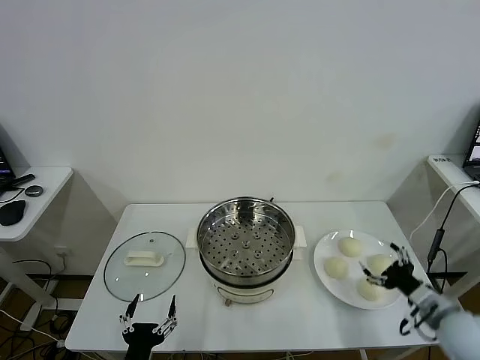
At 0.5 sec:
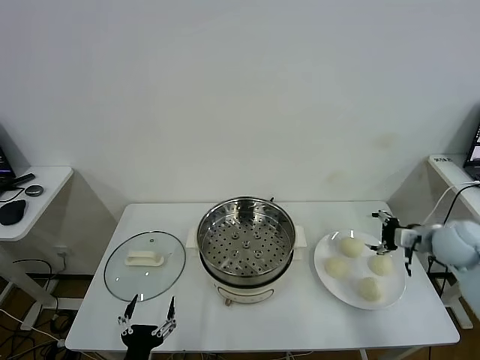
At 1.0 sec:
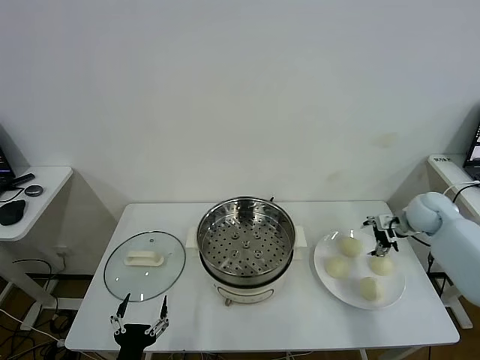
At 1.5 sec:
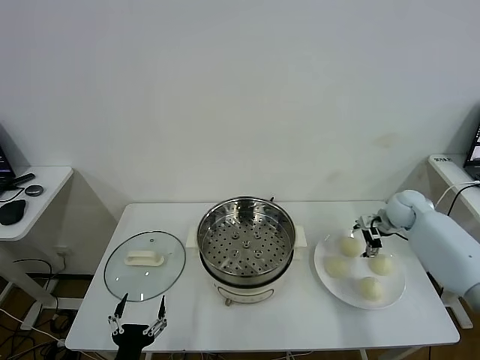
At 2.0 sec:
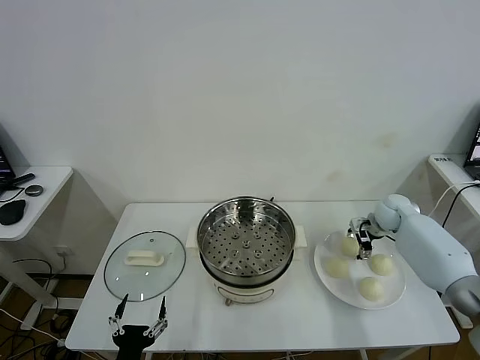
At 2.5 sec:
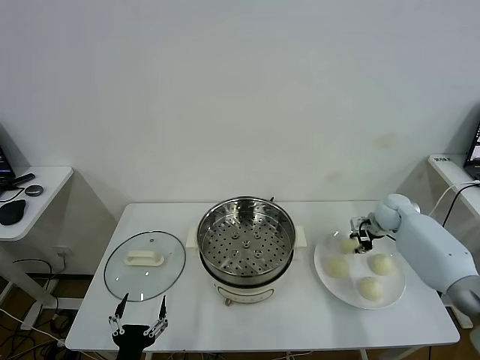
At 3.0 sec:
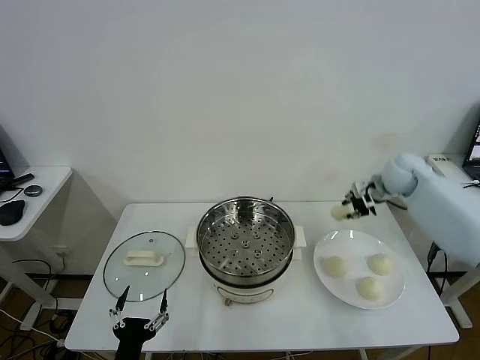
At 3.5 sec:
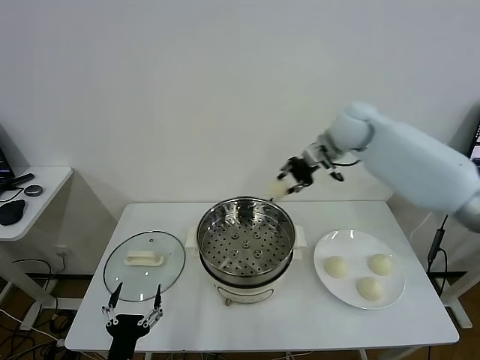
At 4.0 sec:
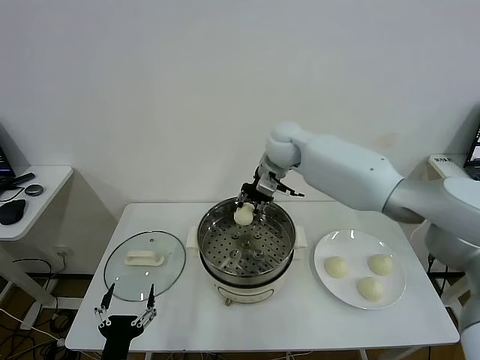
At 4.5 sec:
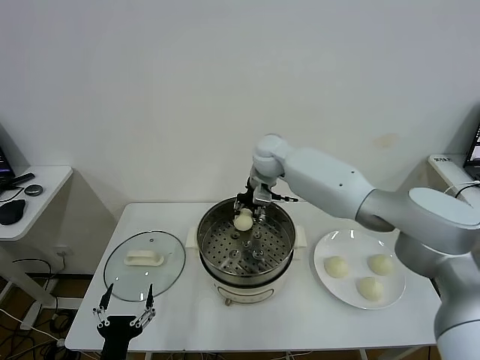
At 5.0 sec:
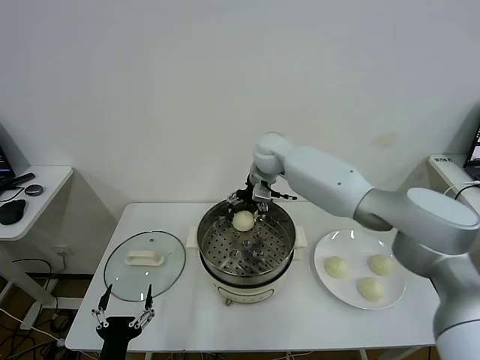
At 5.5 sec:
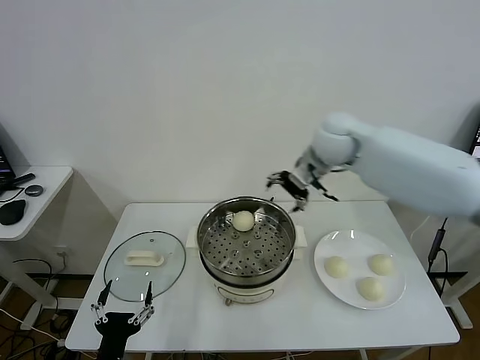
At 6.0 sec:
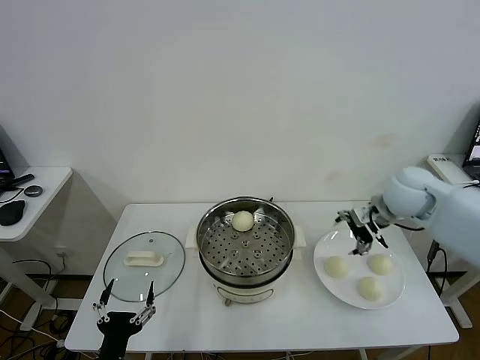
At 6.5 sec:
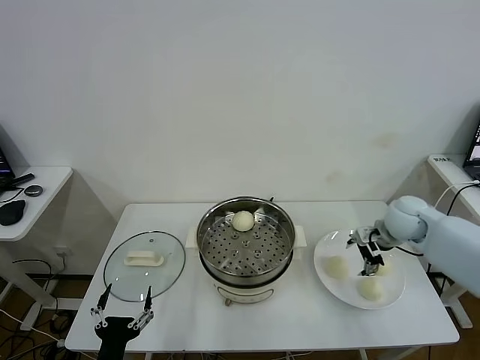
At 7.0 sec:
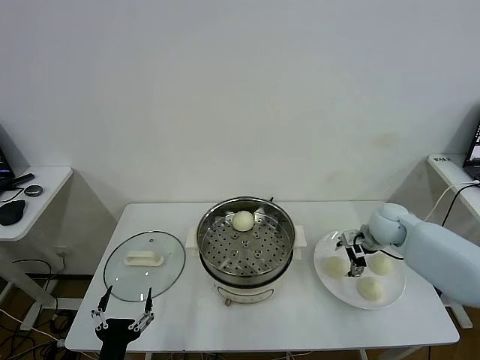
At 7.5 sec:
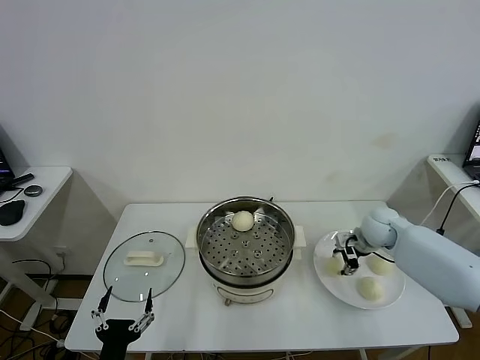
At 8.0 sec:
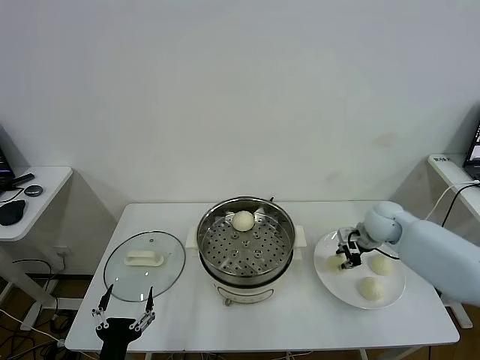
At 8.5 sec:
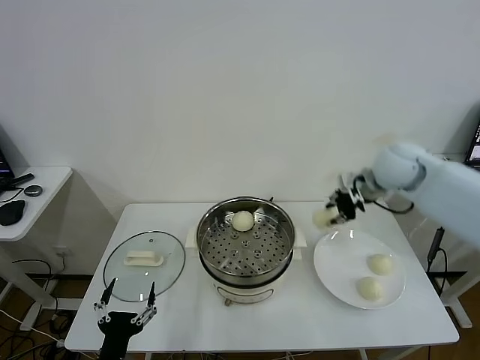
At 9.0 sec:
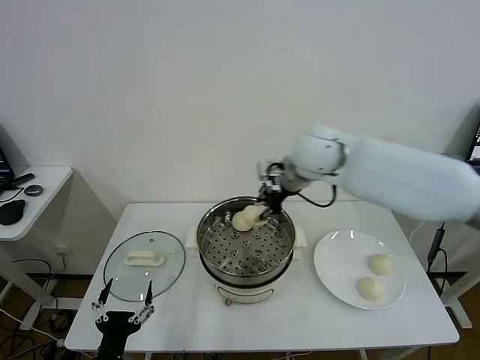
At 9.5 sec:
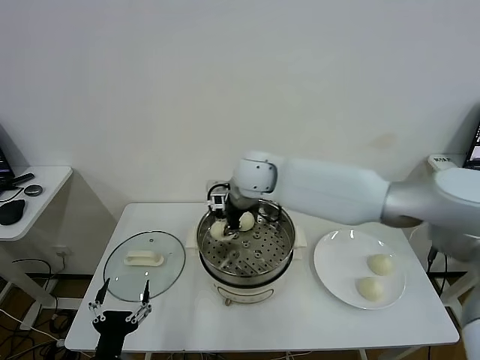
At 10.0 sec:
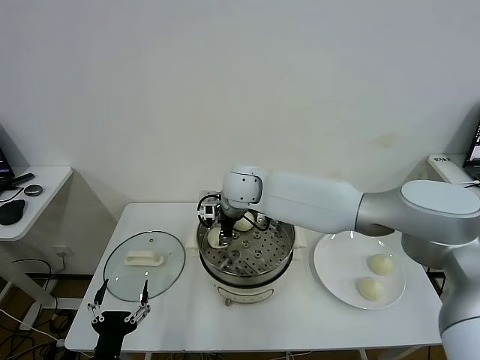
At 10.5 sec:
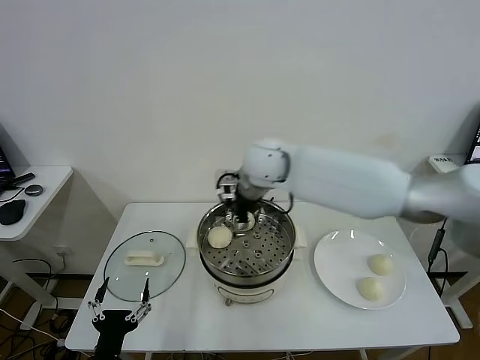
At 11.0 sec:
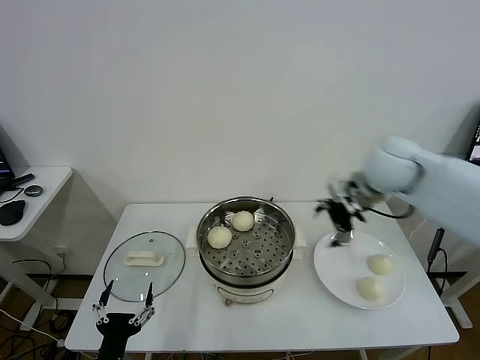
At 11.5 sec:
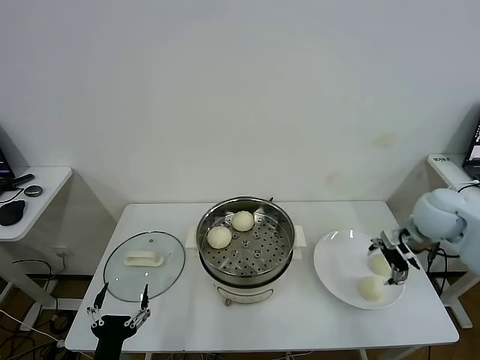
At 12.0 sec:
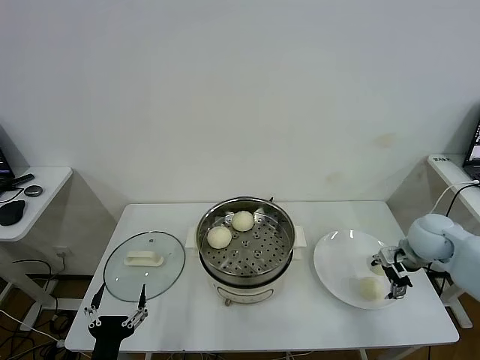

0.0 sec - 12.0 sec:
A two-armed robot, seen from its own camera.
Task of the whole recording: take steamed baozi put them in steamer.
Step, 0.0 sec - 2.0 sec: Grasp the baozi in the plate with right gripper.
Step, 2.5 sec - 5.0 sec: Place the baozi on the steamer with right gripper.
Step, 5.5 sec - 7.5 sec: Grasp the baozi in the plate with right gripper.
Step, 8.0 sec - 10.0 sec: Place the baozi on the steamer with right gripper.
2.0 sec - 4.0 sec: The right gripper moves to the left and upward, about 35 cm, and closes up.
4.0 sec - 6.0 sec: The right gripper travels to the right and backward by about 30 cm, and opens its fingers.
6.0 sec - 8.0 sec: The right gripper travels downward by about 10 cm, and closes its fingers.
8.0 sec - 10.0 sec: The right gripper heads to the left, covering approximately 35 cm, and opens.
10.0 sec - 12.0 sec: The right gripper shifts roughly 40 cm to the right, and opens up.

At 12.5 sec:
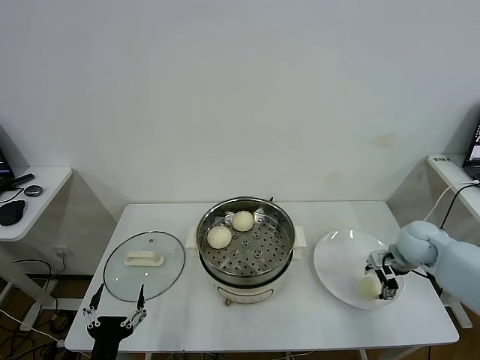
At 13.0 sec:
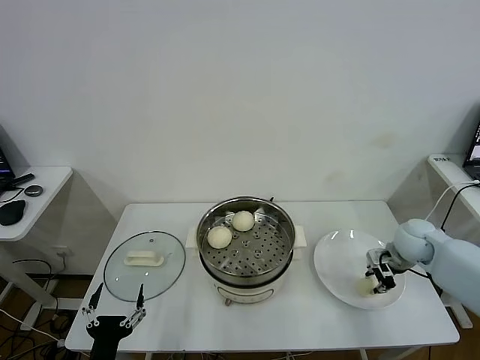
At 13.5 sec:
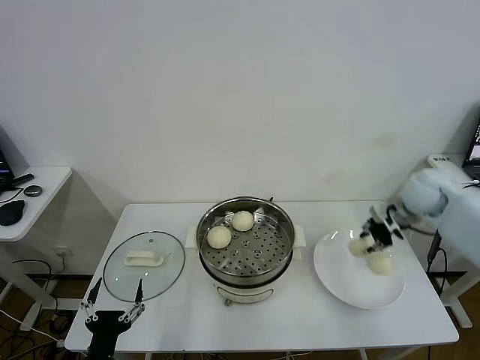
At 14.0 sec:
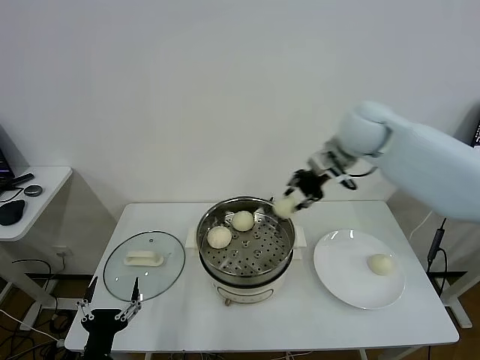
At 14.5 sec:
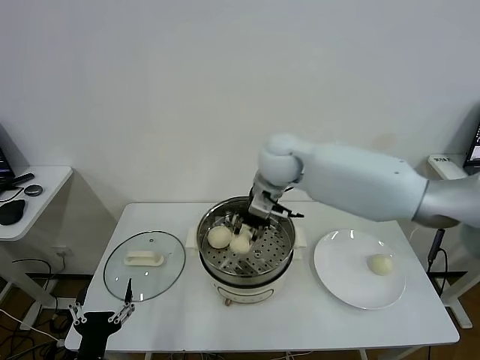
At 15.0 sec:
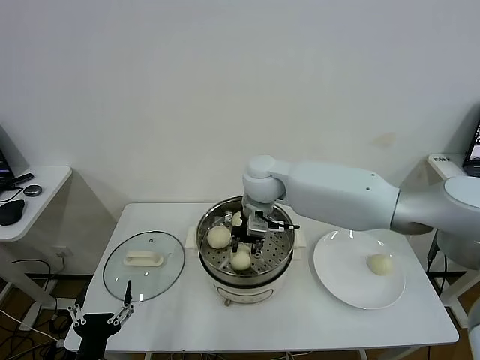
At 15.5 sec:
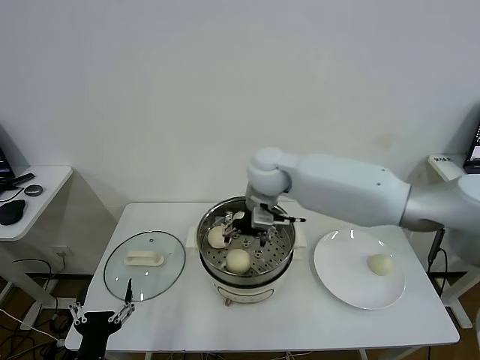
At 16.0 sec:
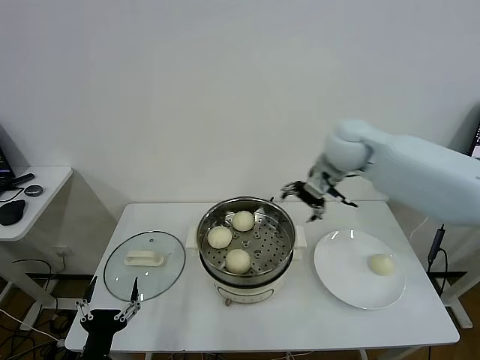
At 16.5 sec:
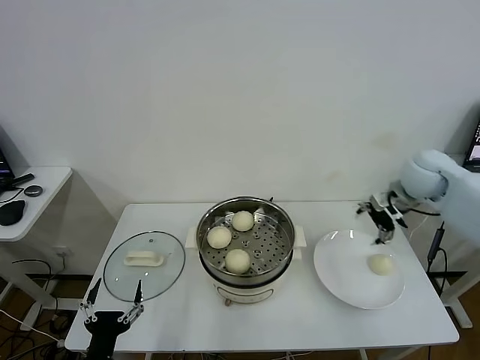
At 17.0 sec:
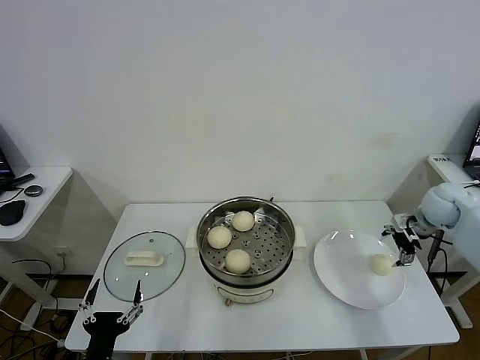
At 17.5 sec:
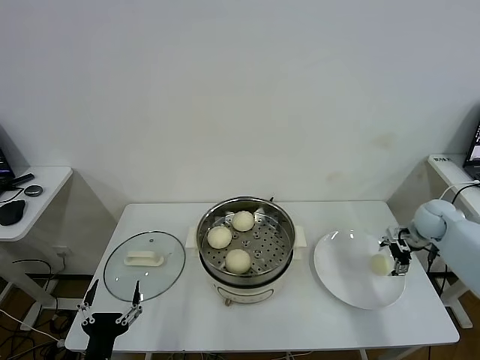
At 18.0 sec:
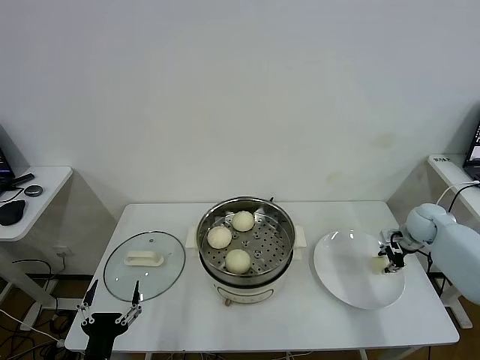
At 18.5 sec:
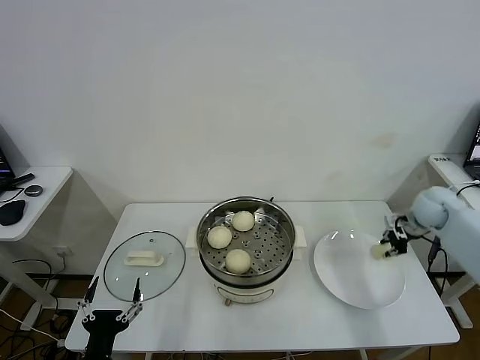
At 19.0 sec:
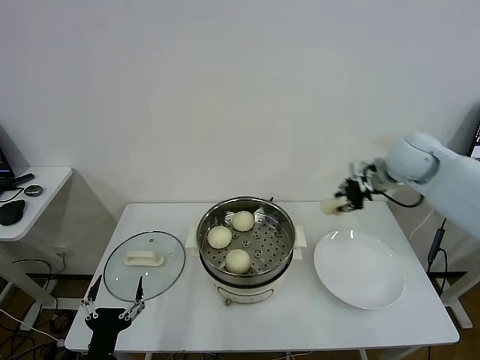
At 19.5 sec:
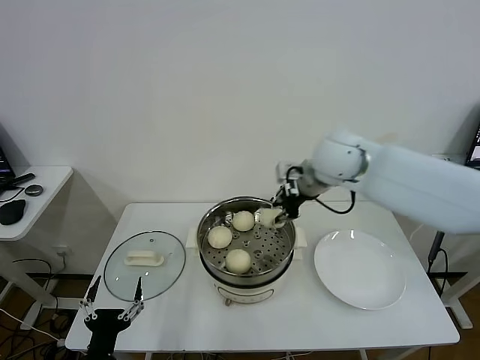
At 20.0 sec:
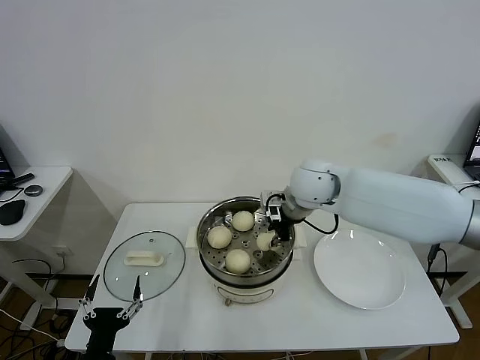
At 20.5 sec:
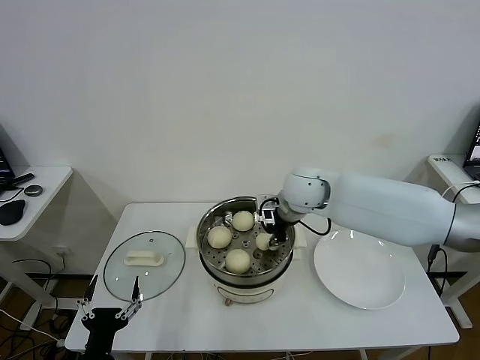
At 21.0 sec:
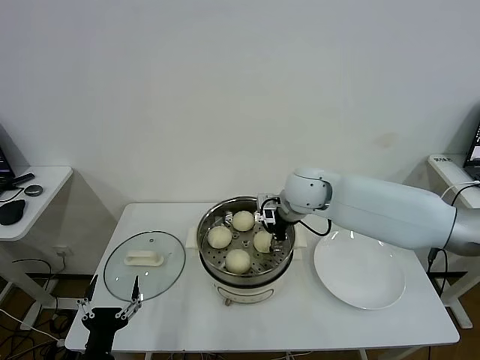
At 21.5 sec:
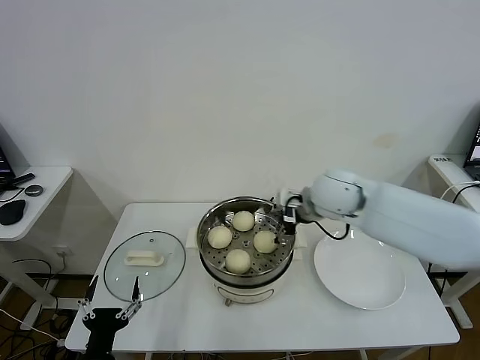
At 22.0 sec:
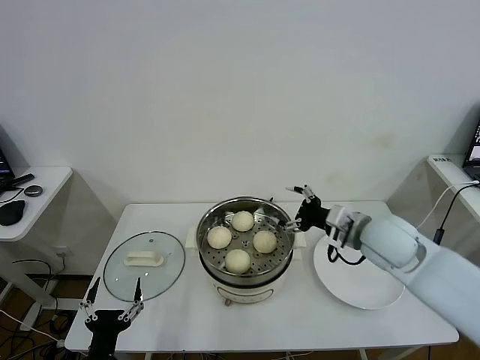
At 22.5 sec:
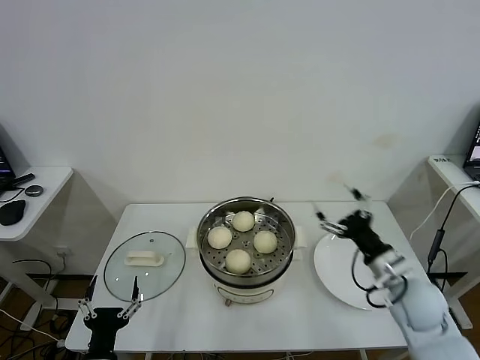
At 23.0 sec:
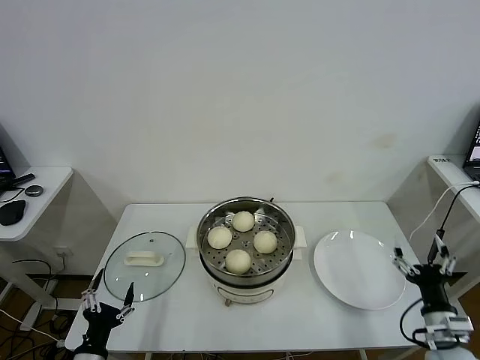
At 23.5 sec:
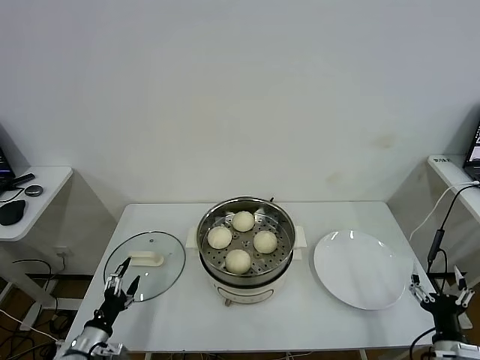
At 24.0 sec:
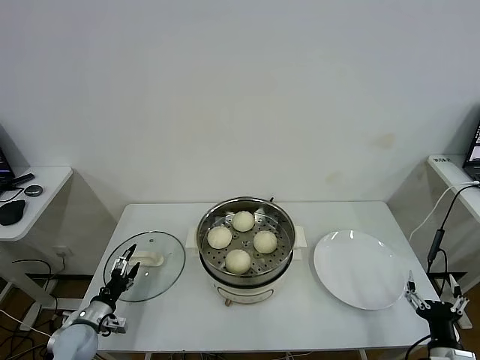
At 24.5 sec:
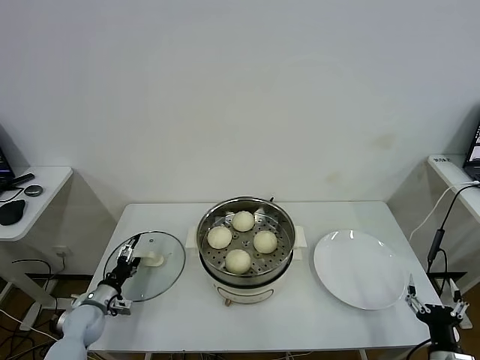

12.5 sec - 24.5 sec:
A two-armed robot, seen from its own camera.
Task of the whole recording: take steamed baozi put them in steamer.
Step, 13.0 sec - 15.0 sec: Place the baozi on the steamer with right gripper.
Step, 15.5 sec - 18.0 sec: Grasp the baozi in the plate with right gripper.
Step, 18.5 sec - 21.0 sec: Place the baozi on the steamer with right gripper.
12.5 sec - 14.5 sec: The right gripper shifts some 40 cm to the left and upward, and closes.
14.5 sec - 16.5 sec: The right gripper is displaced to the right by some 30 cm, and opens.
16.5 sec - 18.5 sec: The right gripper travels downward and to the right by approximately 10 cm, and closes up.
18.5 sec - 20.5 sec: The right gripper is displaced to the left by roughly 35 cm.
20.5 sec - 22.5 sec: The right gripper travels to the right, backward and downward by roughly 30 cm, and opens its fingers.
22.5 sec - 24.5 sec: The right gripper shifts roughly 25 cm backward, downward and to the right. The left gripper heads forward, to the left and downward, covering approximately 25 cm.

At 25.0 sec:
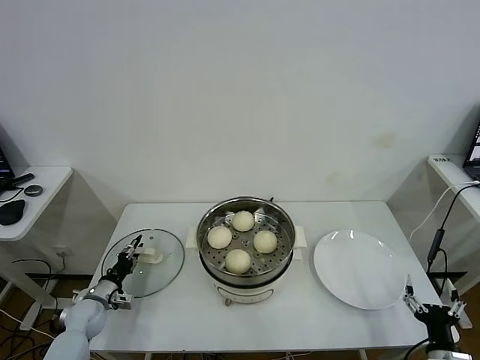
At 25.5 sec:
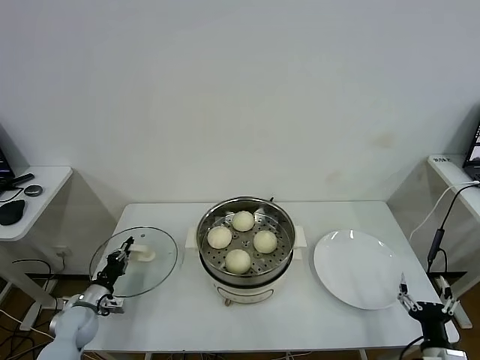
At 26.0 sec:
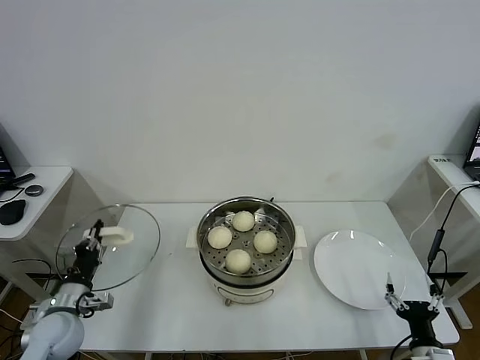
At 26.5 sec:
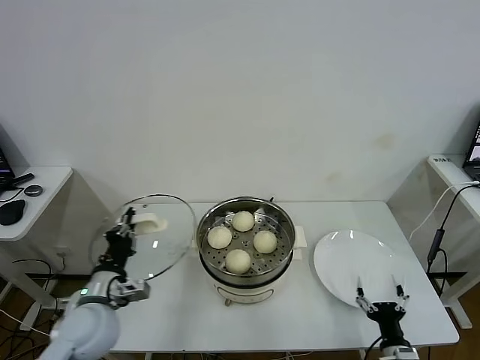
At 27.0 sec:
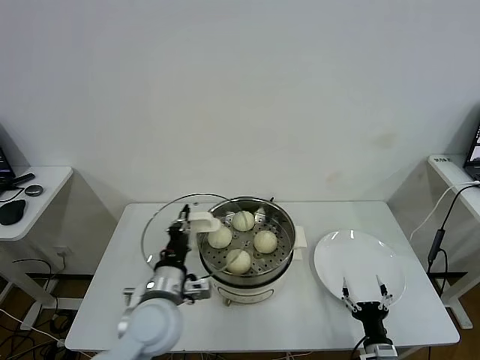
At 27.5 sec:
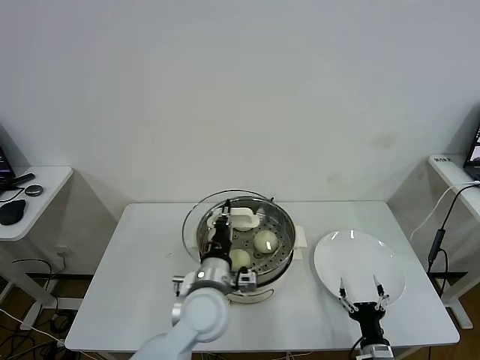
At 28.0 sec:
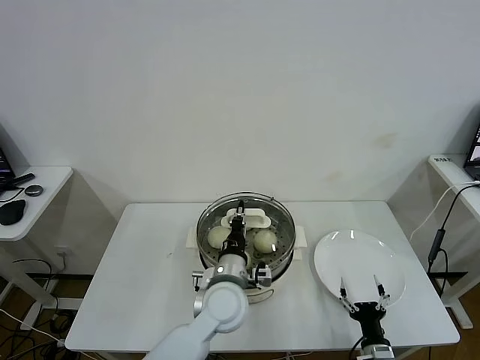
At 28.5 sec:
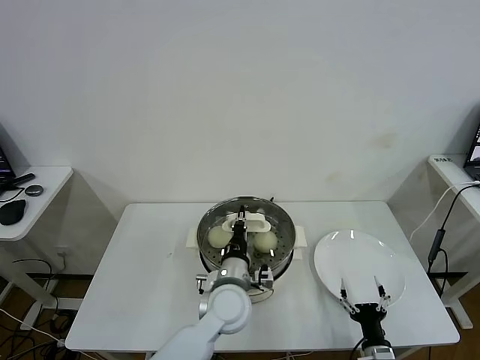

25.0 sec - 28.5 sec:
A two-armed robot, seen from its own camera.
Task of the whole recording: take steamed baozi put them in steamer.
25.0 sec - 27.0 sec: The left gripper moves to the right and upward, some 30 cm, and closes its fingers. The right gripper goes approximately 10 cm to the left and downward.
27.0 sec - 28.5 sec: The left gripper shifts approximately 15 cm to the right.
